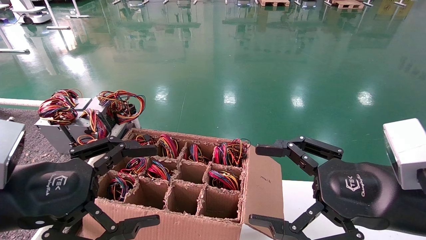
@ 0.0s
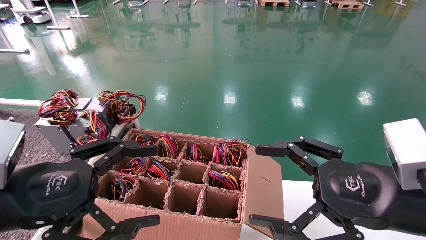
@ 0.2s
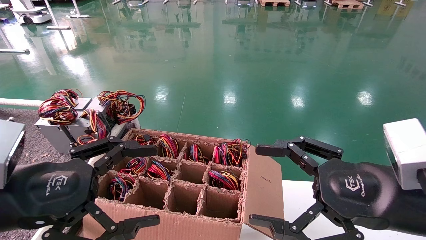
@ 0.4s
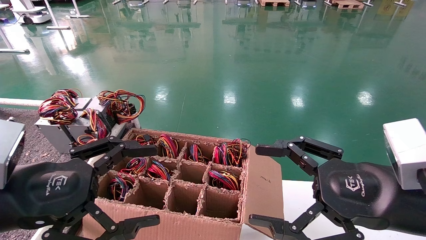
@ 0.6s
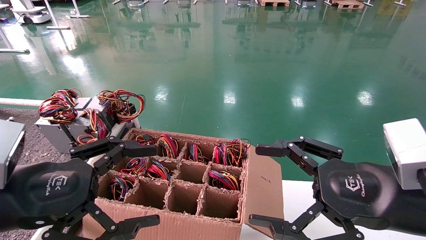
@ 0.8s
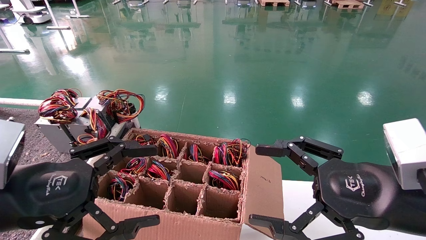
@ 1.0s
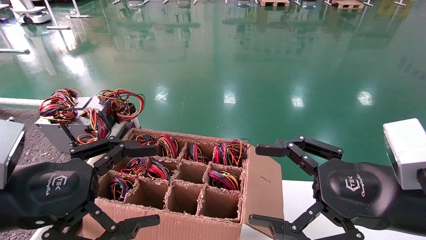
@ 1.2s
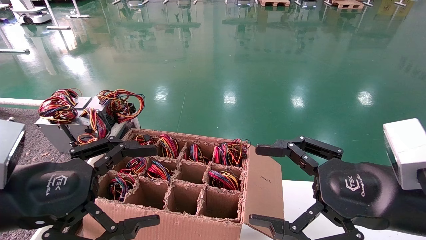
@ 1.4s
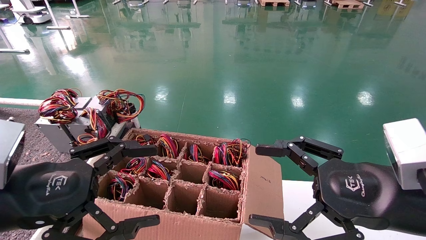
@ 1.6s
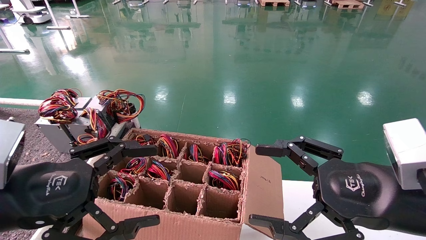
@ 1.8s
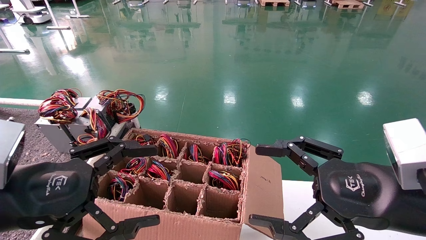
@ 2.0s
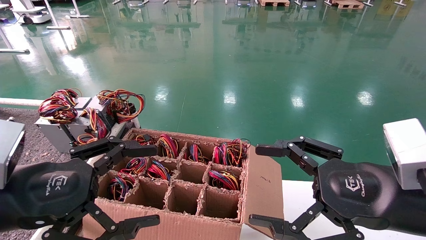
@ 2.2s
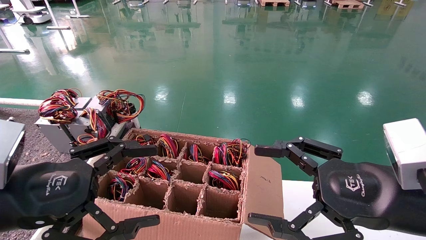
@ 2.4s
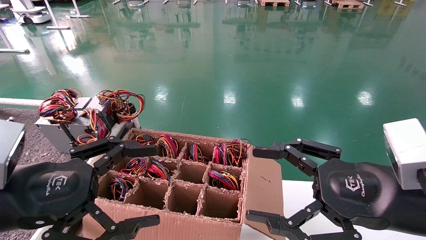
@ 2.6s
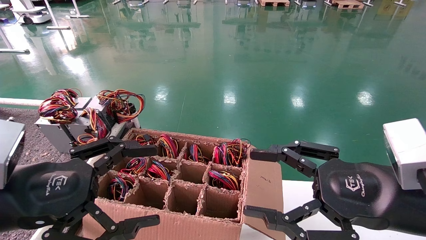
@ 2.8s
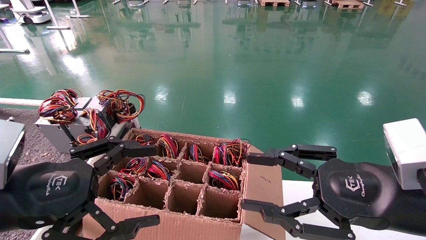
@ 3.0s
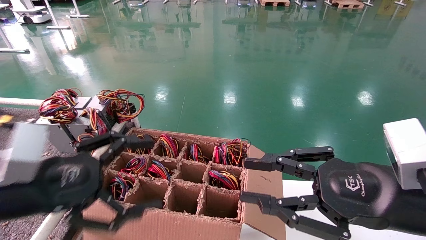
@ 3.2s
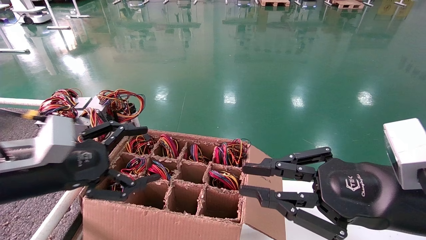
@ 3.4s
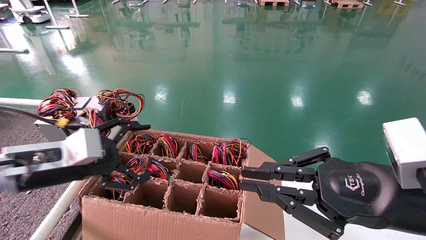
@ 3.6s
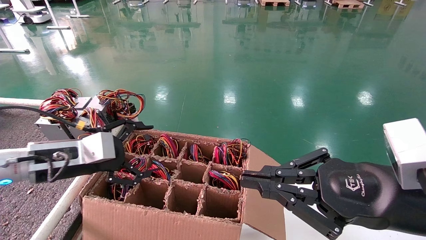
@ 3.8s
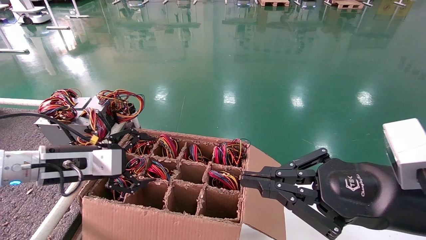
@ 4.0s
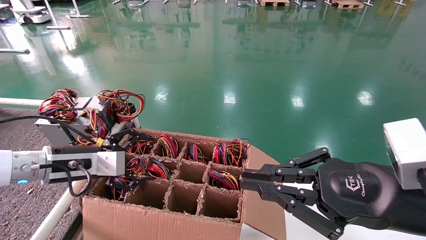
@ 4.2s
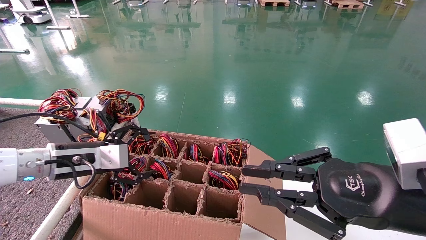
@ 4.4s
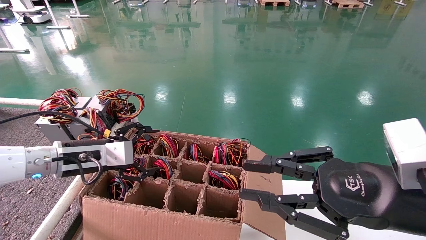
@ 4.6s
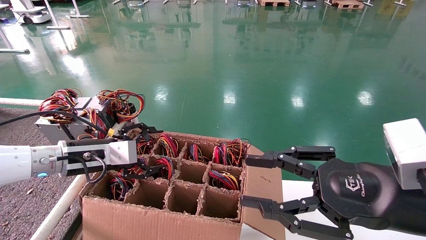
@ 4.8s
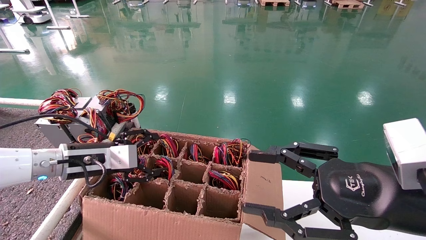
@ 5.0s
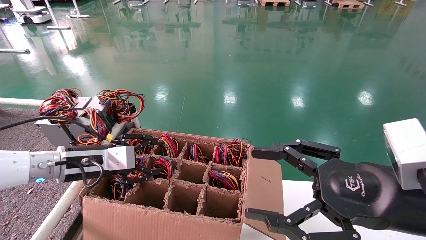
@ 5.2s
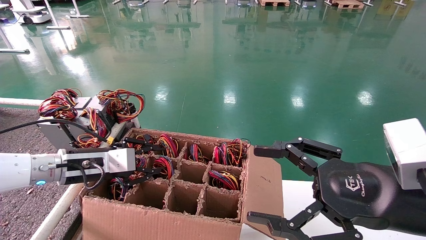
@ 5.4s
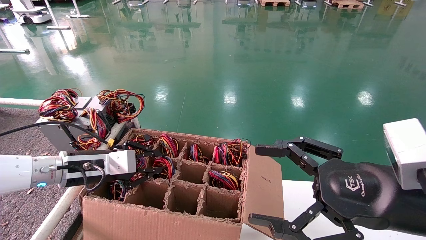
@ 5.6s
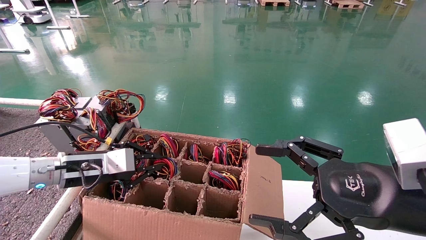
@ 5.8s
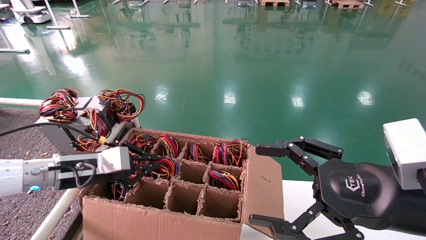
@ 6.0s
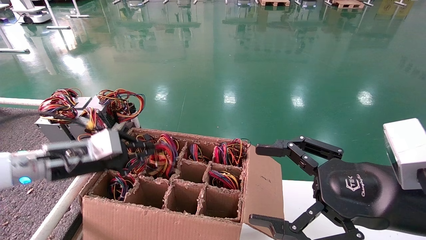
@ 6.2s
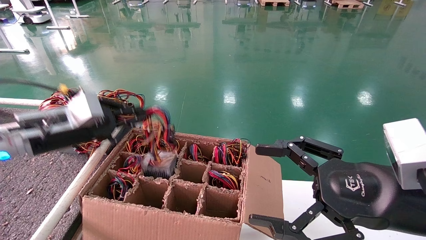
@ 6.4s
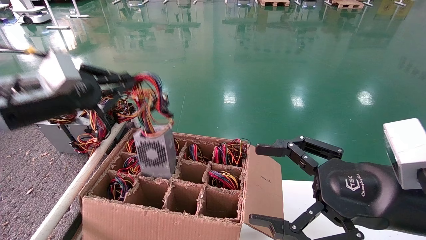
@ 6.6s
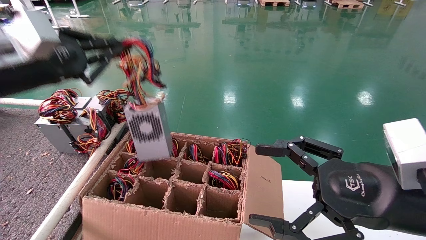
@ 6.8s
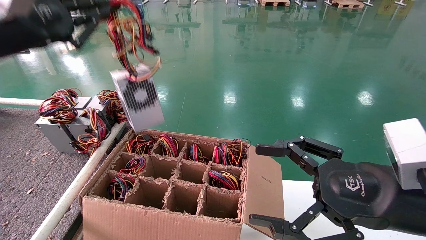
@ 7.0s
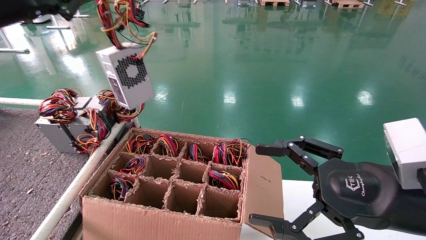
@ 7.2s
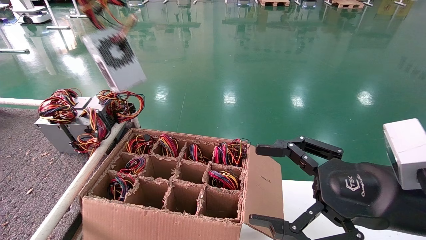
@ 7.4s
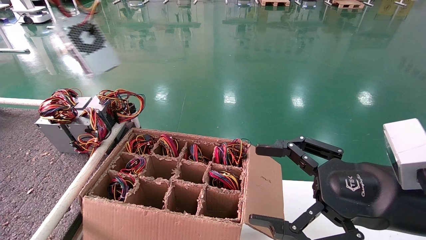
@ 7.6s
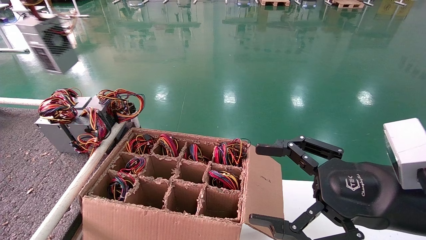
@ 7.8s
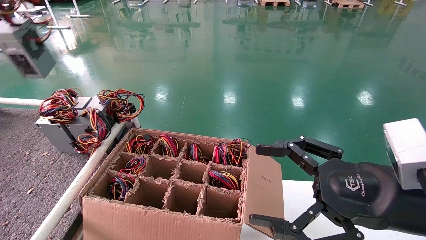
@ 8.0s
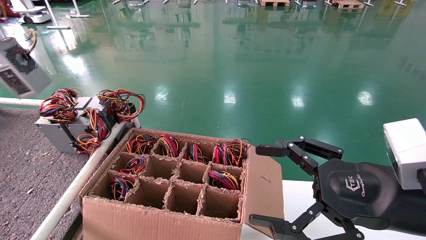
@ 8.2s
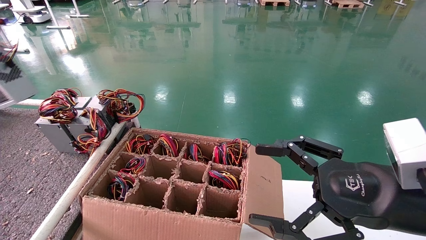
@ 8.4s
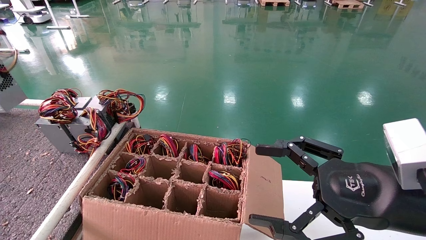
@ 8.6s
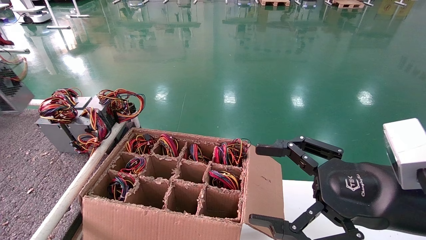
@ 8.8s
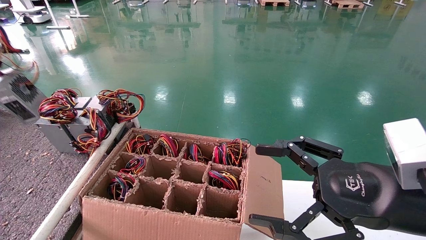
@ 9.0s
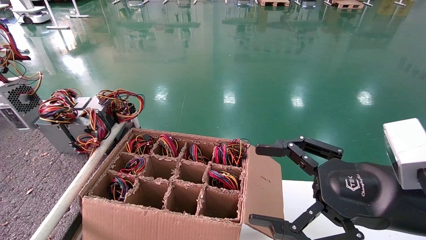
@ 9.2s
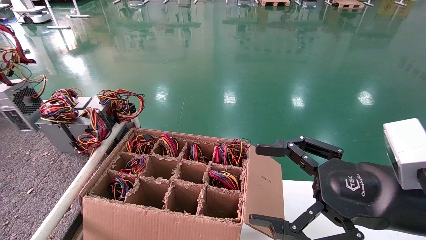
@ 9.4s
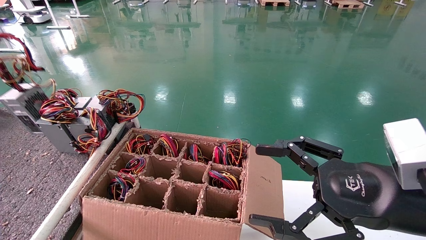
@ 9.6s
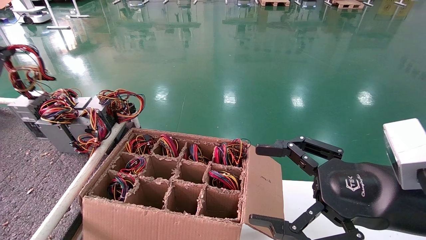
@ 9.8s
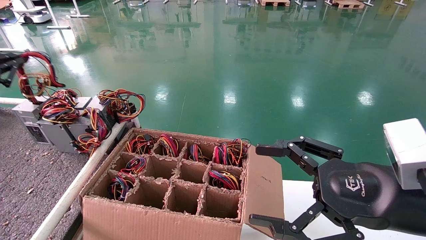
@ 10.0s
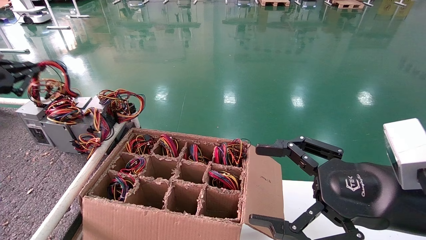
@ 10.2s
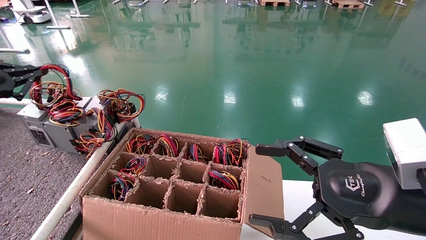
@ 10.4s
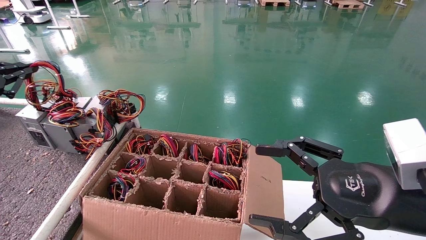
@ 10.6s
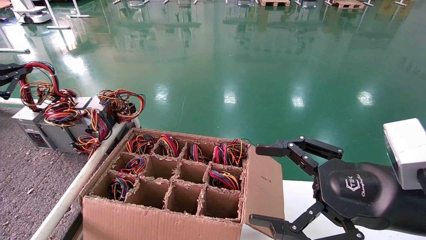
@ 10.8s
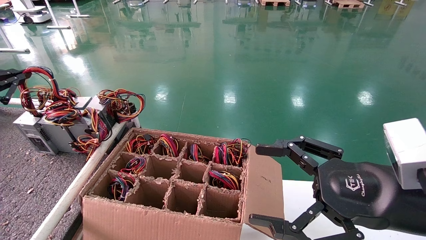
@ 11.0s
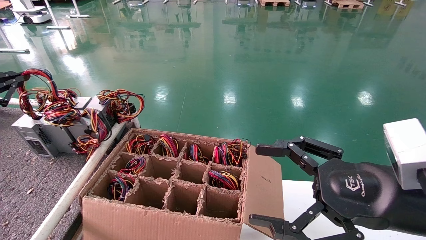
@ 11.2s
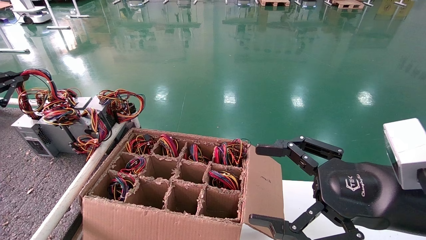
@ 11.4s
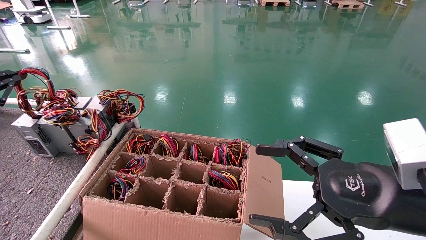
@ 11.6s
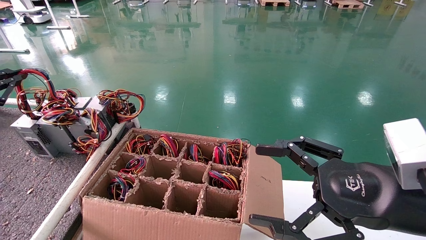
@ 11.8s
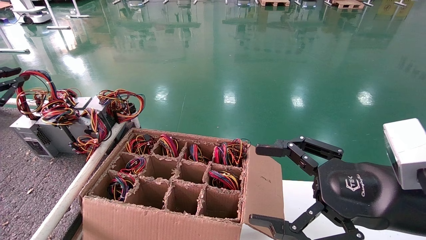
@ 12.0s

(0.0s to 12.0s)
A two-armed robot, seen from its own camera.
Step, 3.6s - 6.2s: Grab and lift the power supply from the large box.
0.0s - 1.6s: Both grippers stay about where they are.
1.6s - 3.0s: The right gripper closes its fingers.
3.0s - 4.4s: The left gripper travels forward by about 15 cm, while the right gripper closes.
4.4s - 6.0s: The right gripper opens. Meanwhile the left gripper closes up.
6.0s - 7.6s: The left gripper is displaced upward and to the left by approximately 35 cm.
7.6s - 9.0s: The left gripper goes roughly 15 cm to the left and downward.
9.0s - 10.4s: The left gripper heads downward, covering roughly 10 cm.
10.4s - 12.0s: There are only small adjustments of the grippers.

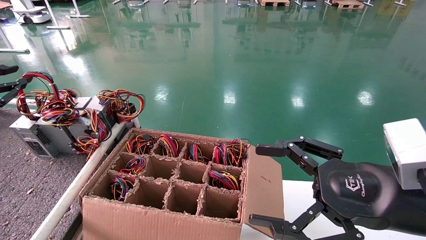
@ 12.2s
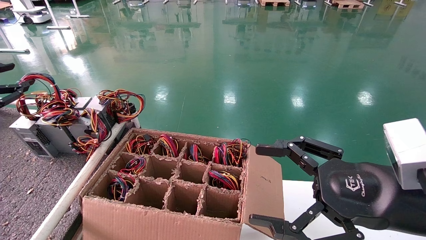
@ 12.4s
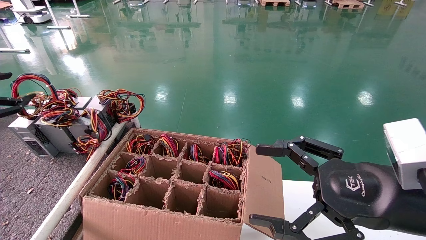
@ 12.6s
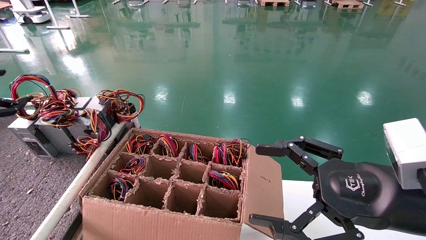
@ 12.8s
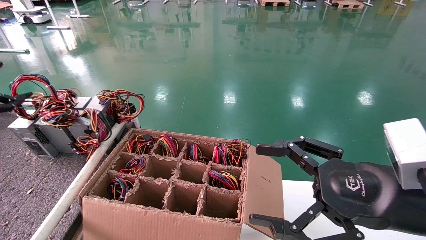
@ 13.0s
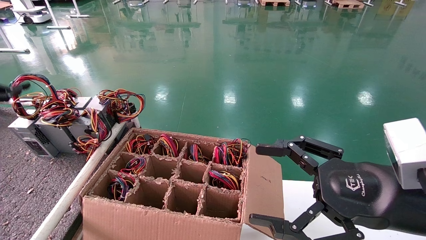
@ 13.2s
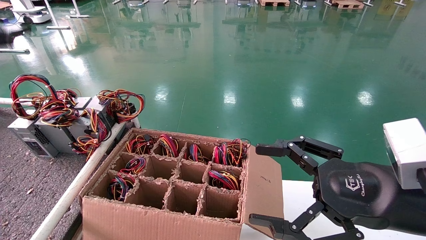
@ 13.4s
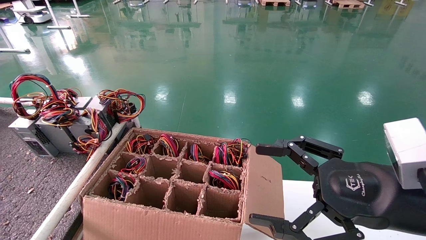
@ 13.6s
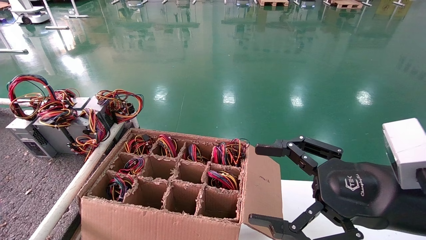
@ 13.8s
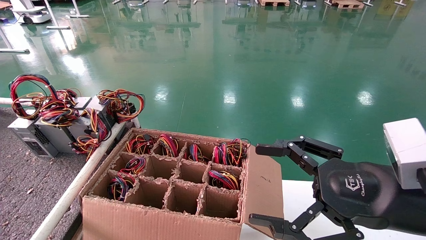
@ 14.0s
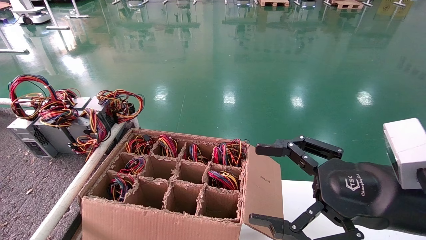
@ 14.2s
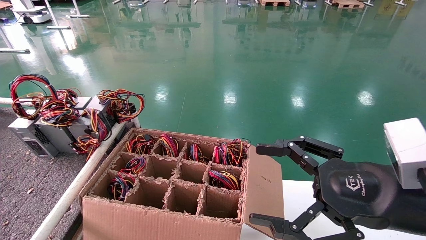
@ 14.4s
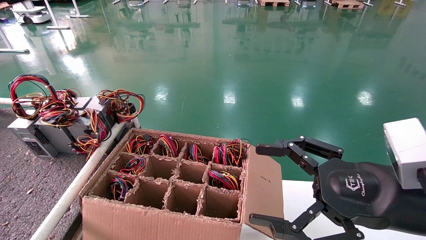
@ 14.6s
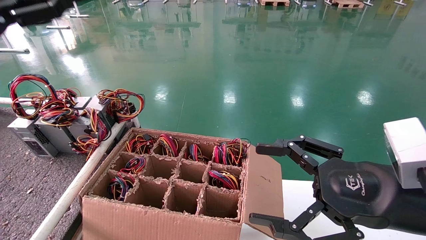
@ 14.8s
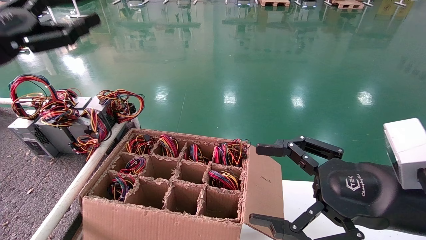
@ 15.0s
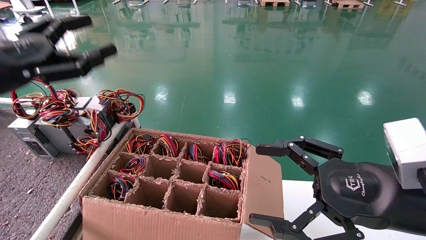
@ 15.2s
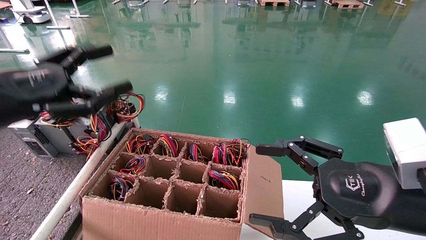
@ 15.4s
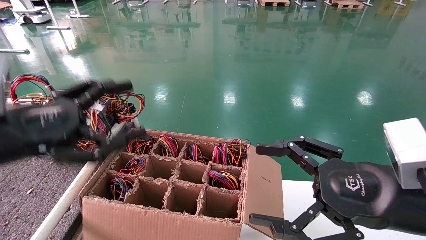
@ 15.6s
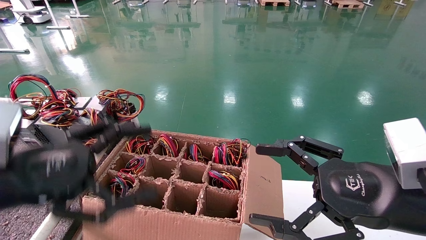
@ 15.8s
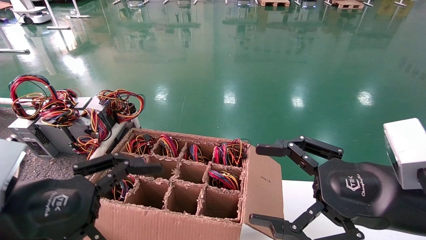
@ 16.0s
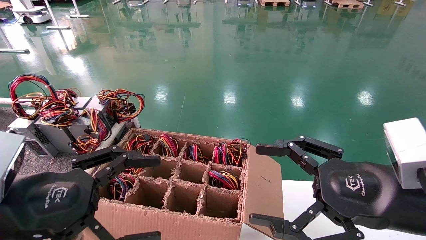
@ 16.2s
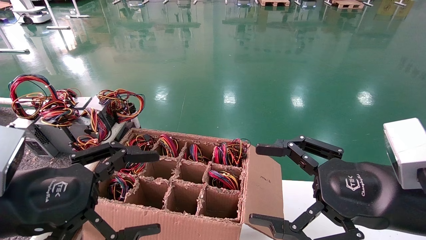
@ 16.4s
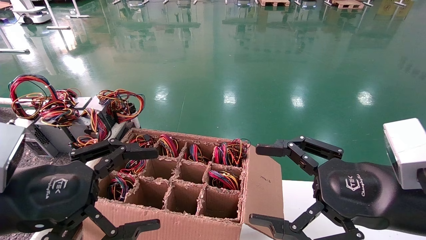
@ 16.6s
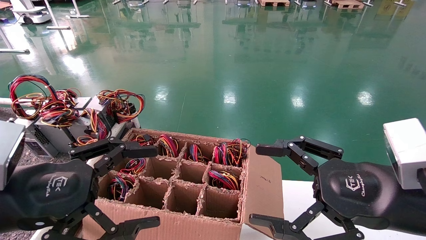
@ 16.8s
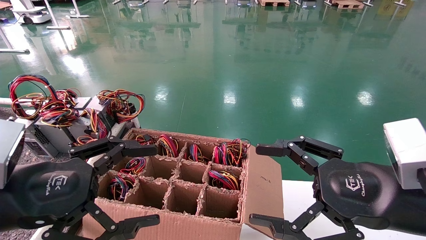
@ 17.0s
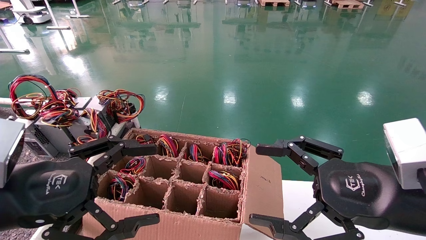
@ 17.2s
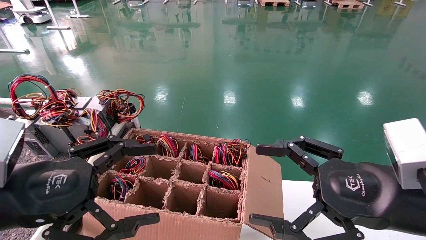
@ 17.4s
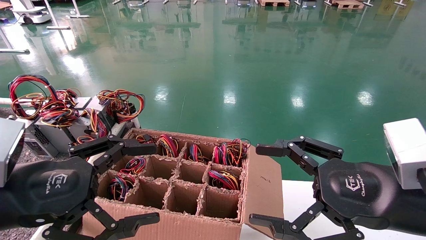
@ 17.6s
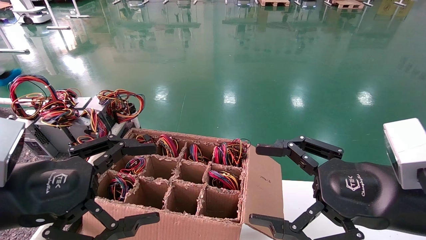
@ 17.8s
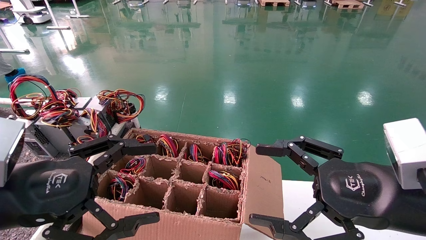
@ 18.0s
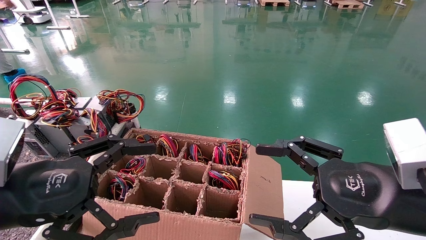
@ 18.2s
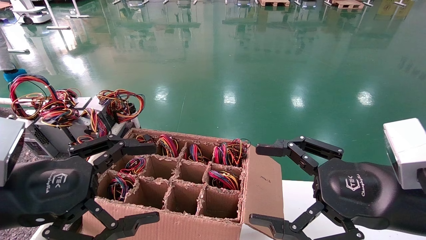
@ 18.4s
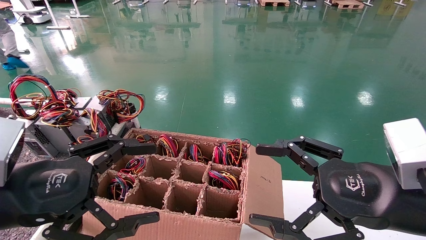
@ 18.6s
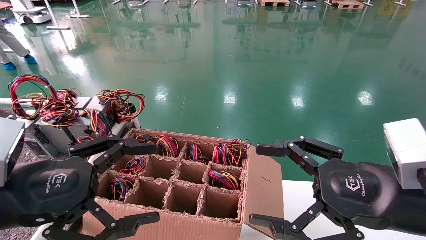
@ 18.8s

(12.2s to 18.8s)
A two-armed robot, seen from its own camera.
12.2s - 13.8s: The left gripper travels upward and to the right by roughly 20 cm, and opens up.
13.8s - 15.4s: The left gripper is displaced downward, to the right and backward by approximately 20 cm.
15.4s - 17.2s: The left gripper travels downward and backward by roughly 10 cm.
17.2s - 18.8s: The two grippers keep their place.
